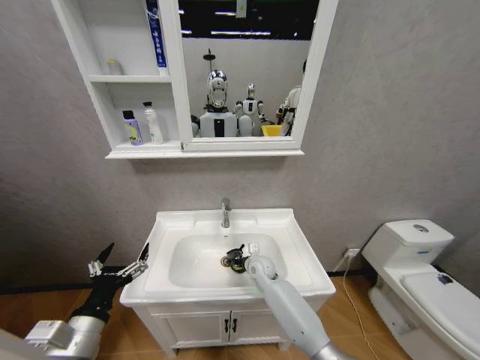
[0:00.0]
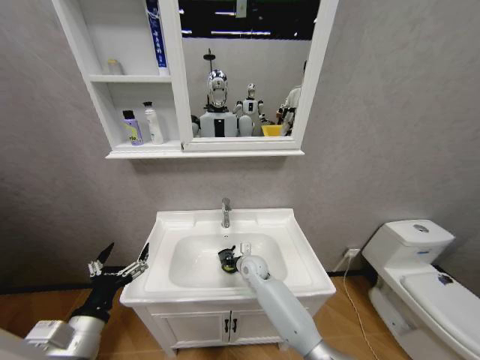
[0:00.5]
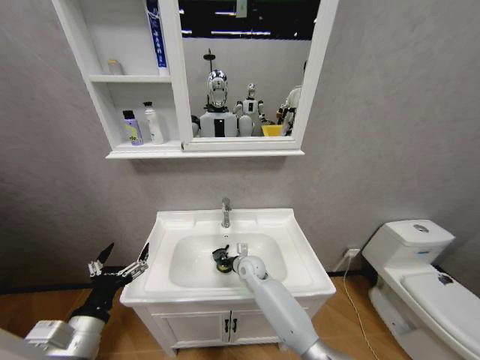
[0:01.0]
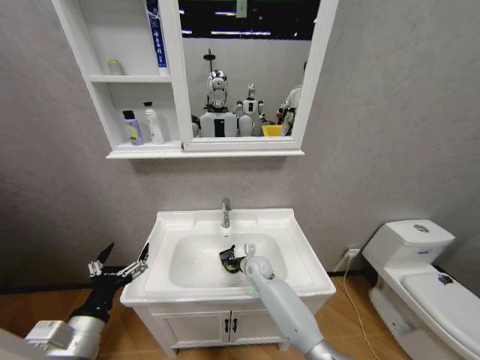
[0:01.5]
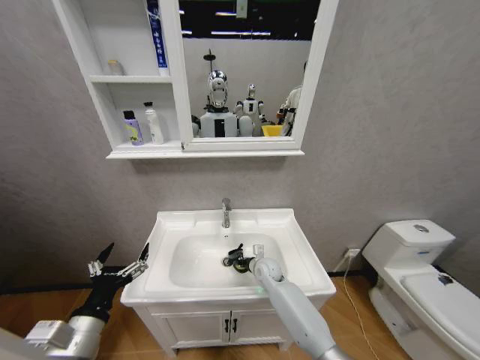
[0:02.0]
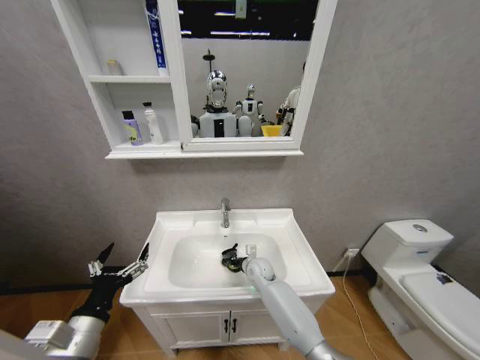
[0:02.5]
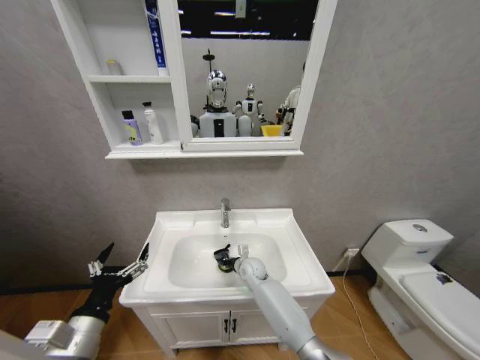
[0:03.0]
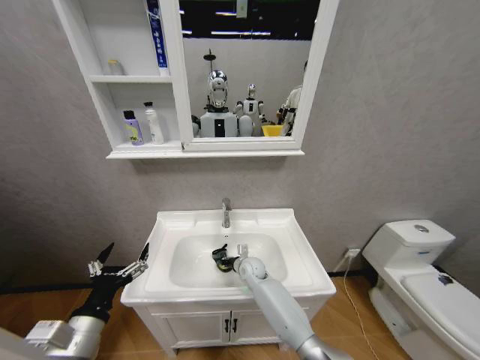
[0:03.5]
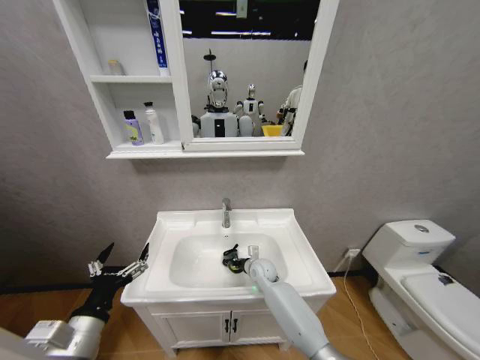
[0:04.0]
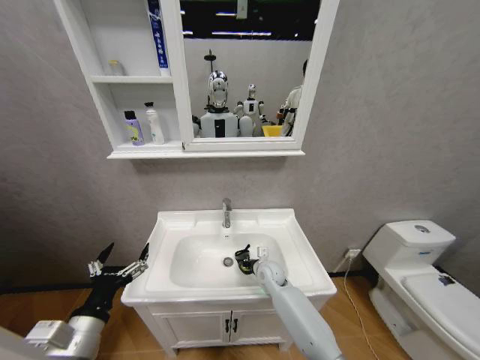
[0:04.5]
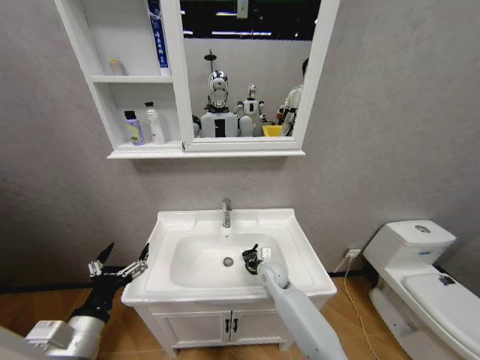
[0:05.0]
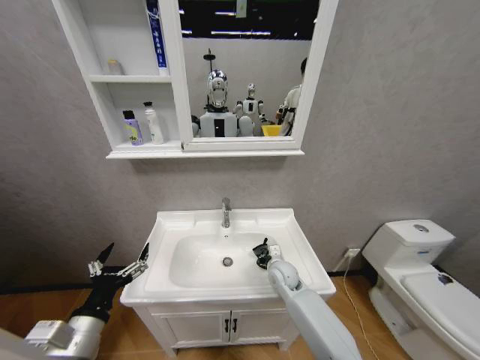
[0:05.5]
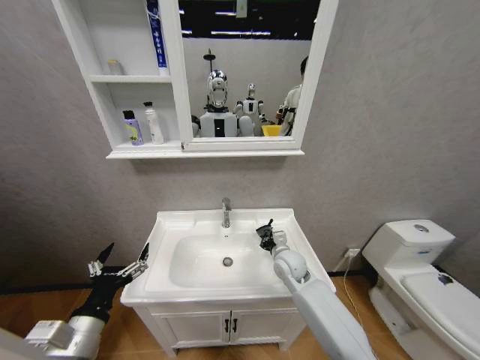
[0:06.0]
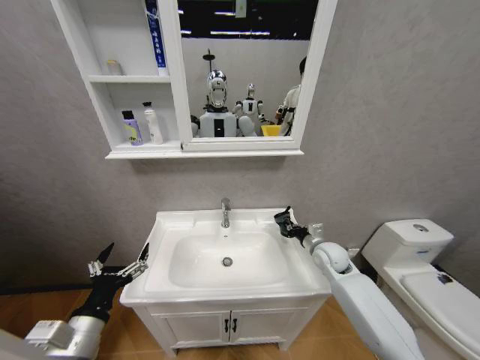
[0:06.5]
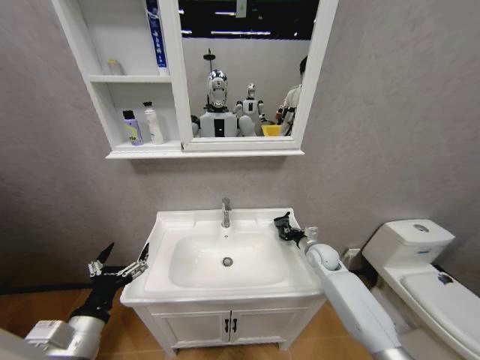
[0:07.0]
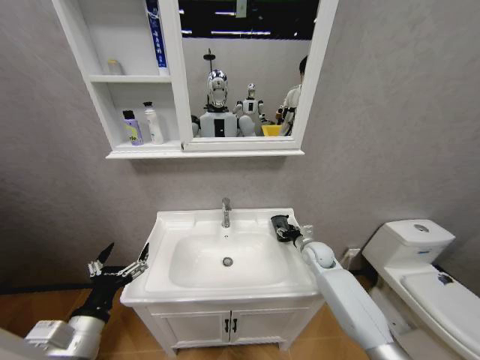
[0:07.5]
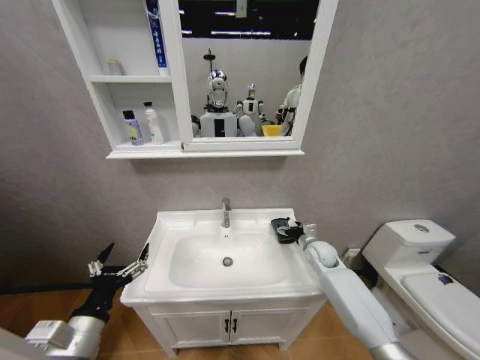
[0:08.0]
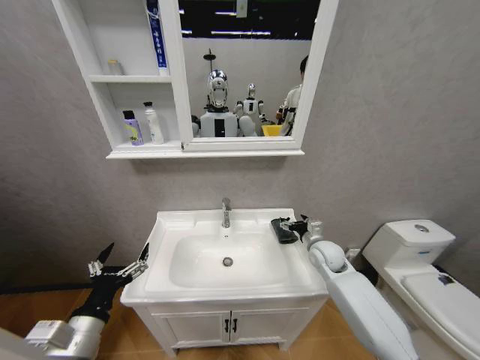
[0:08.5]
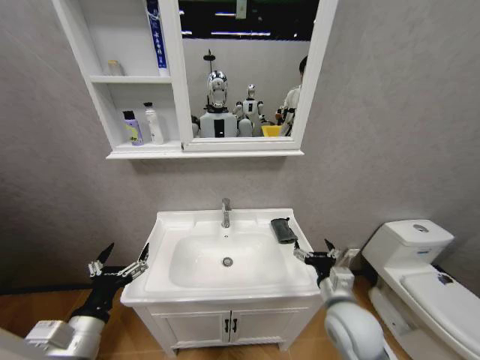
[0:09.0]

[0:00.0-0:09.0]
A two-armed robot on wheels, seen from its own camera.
Task of the whole recording: Move facial cleanser and shampoo from washbasin to cabinet, then wipe washbasin with towel.
0:00.0 to 0:02.0: The grippers stay close to where they were, moving slightly.
0:04.5 to 0:07.0: The right gripper shifts about 20 cm to the right.
0:07.0 to 0:09.0: The right gripper moves backward, approximately 25 cm, and opens.
